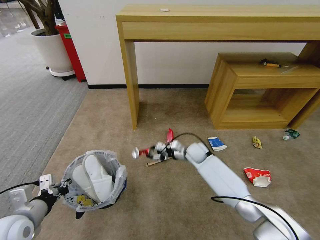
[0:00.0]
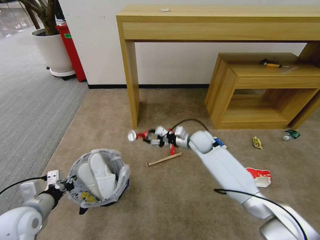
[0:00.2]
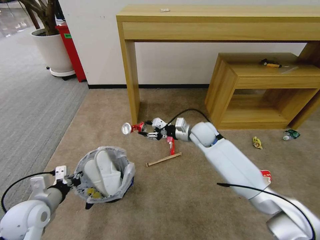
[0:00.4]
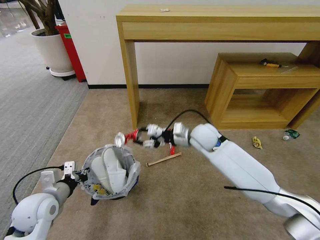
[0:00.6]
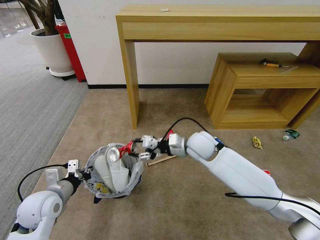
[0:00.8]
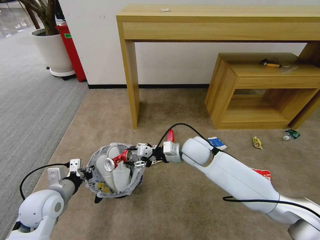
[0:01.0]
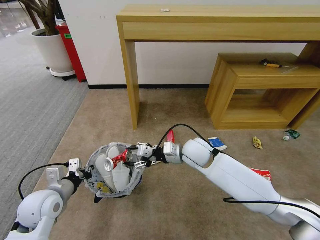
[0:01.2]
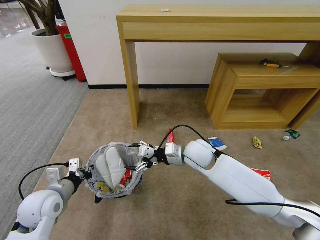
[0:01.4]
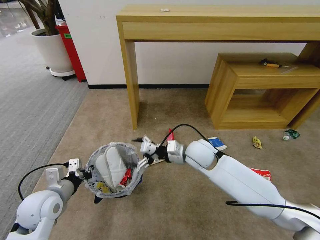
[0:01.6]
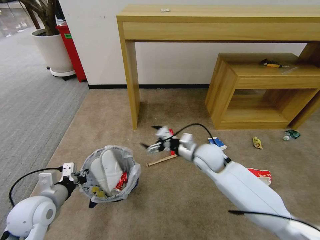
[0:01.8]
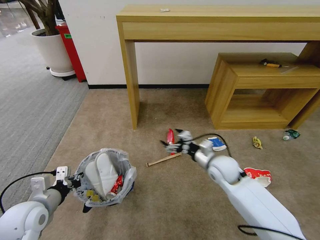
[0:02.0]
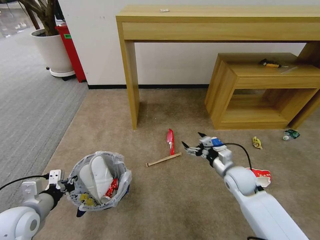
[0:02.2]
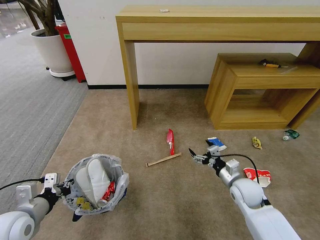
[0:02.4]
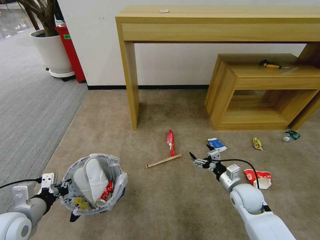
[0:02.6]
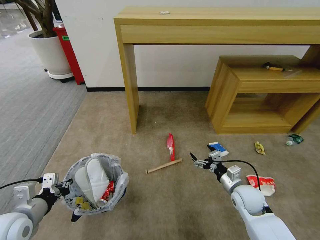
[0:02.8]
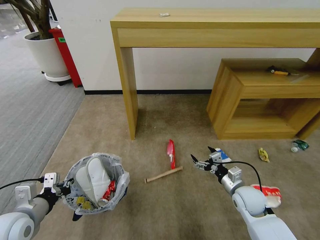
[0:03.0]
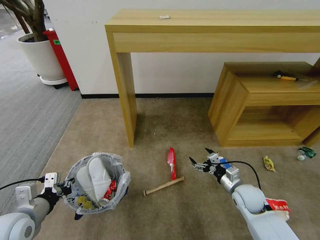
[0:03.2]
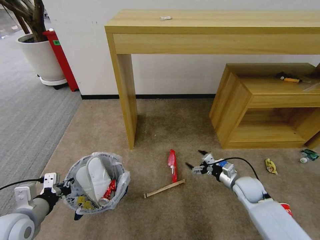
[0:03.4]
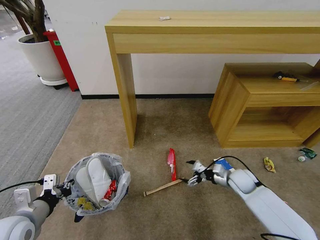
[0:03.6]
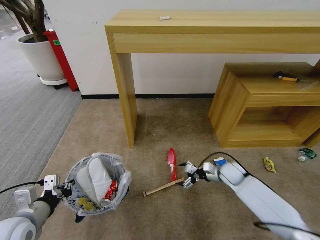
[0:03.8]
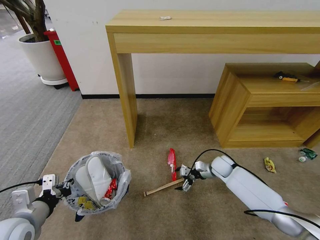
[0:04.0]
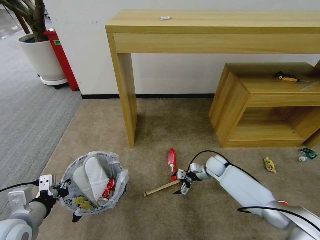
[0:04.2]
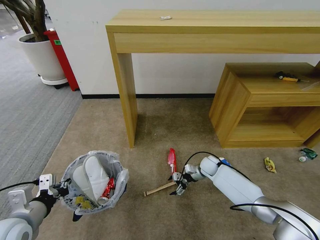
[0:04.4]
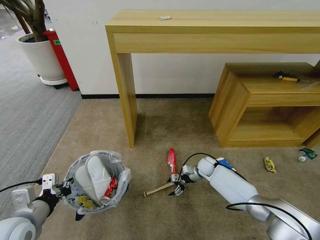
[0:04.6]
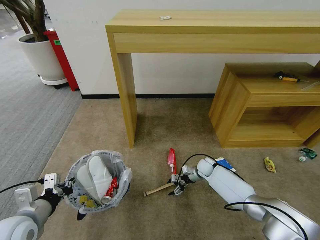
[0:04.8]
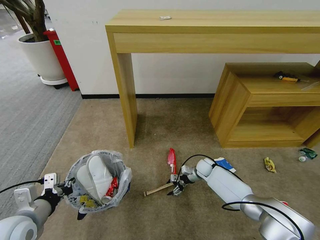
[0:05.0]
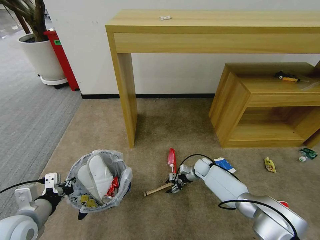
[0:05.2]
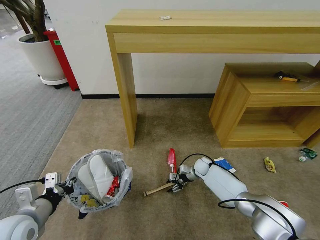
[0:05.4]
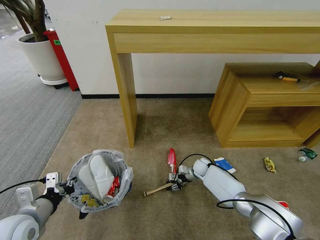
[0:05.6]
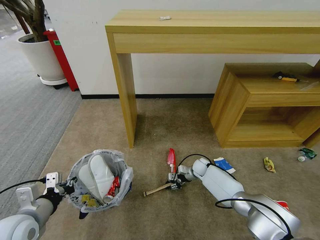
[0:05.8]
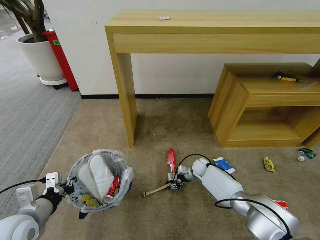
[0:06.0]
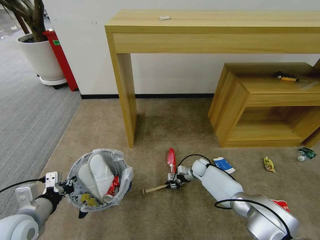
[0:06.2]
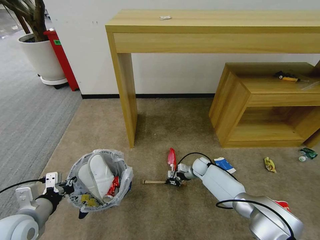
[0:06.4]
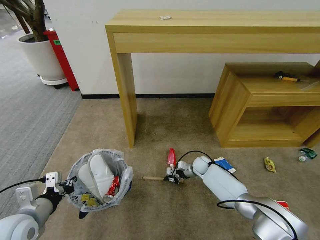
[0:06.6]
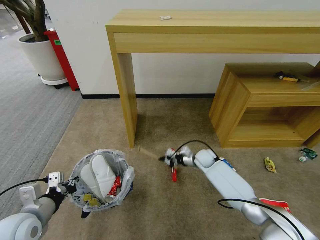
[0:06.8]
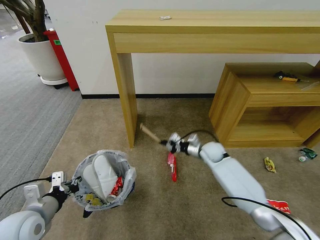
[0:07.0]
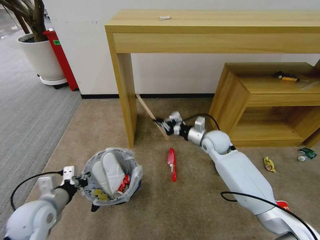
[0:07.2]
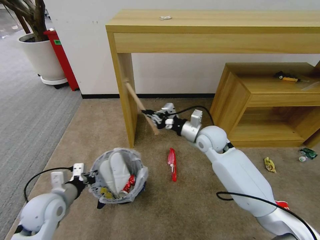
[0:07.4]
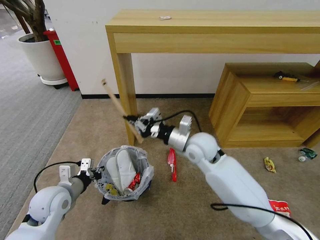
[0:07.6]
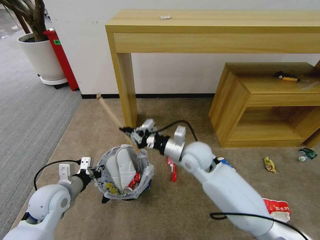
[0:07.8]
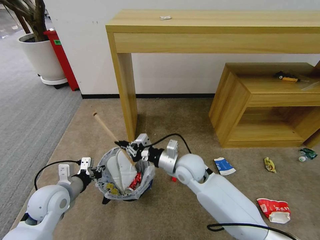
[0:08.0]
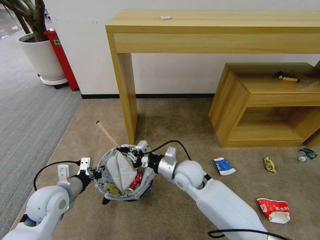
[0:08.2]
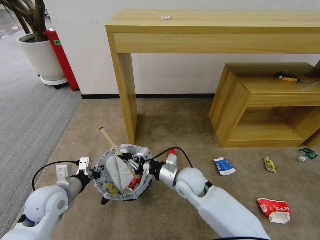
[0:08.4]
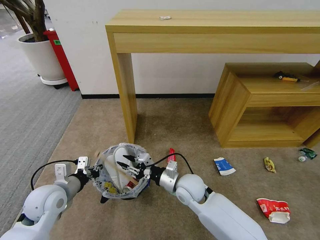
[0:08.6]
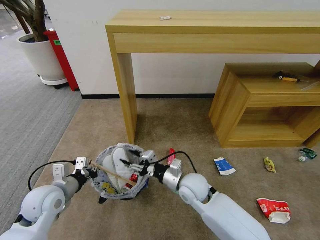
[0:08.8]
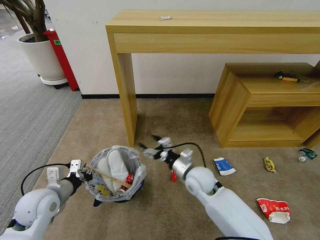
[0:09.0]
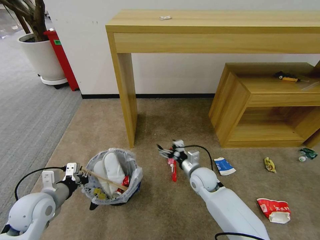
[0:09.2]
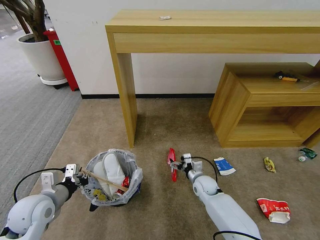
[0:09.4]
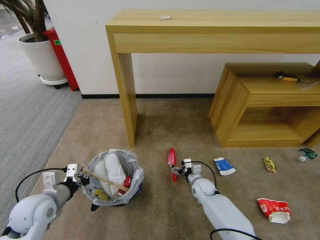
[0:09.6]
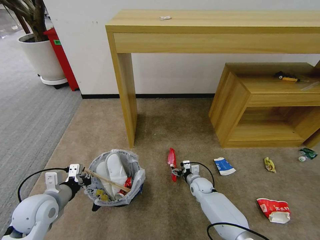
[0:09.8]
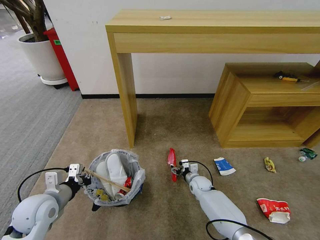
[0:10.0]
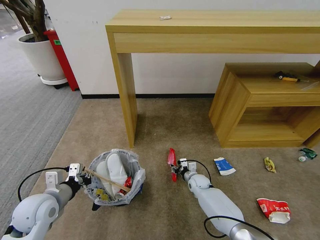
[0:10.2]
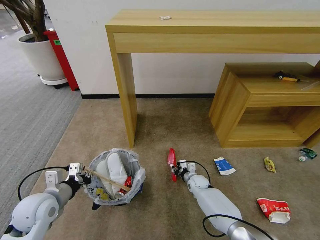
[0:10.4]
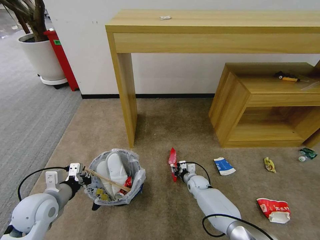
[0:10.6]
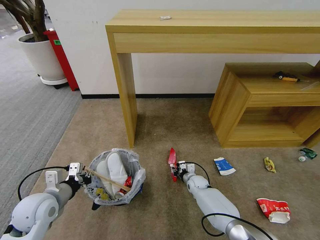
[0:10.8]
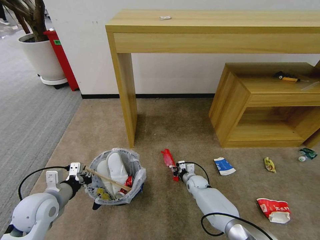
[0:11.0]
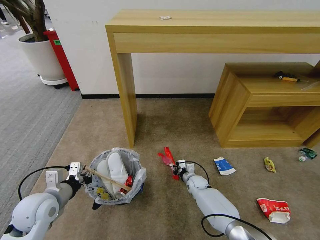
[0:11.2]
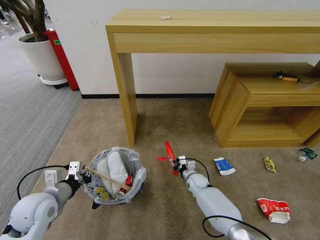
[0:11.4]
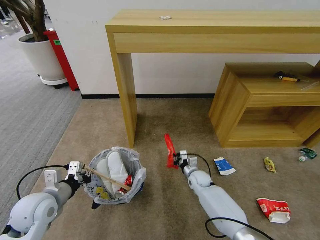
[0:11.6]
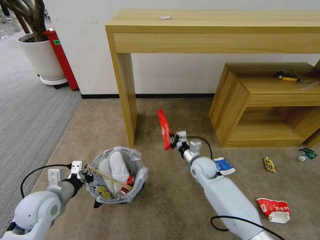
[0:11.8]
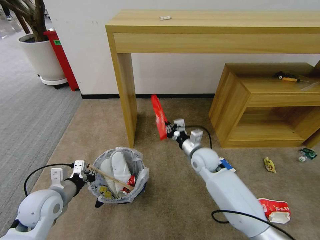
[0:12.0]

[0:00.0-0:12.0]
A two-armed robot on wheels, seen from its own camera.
Task of the whole recording: Pick up the trash bin and place the garbage on the floor into it.
0:00.0 to 0:01.6: The left gripper shifts about 5 cm forward; the right gripper travels upward and backward by approximately 15 cm, and opens up.
0:01.6 to 0:03.0: The left gripper moves backward, approximately 5 cm. The right gripper heads to the right, downward and backward, covering some 25 cm.
0:03.0 to 0:04.4: The right gripper is displaced forward and downward by about 20 cm.
0:04.4 to 0:06.0: The right gripper shifts by some 5 cm, and closes up.
0:06.0 to 0:07.6: The right gripper moves upward, about 30 cm. Meanwhile the left gripper goes some 10 cm forward.
0:07.6 to 0:09.0: The right gripper is displaced downward and backward by approximately 15 cm, and opens.
0:09.0 to 0:10.4: The right gripper is displaced downward and forward by some 25 cm, and closes up.
0:10.4 to 0:12.0: The right gripper goes some 25 cm upward.

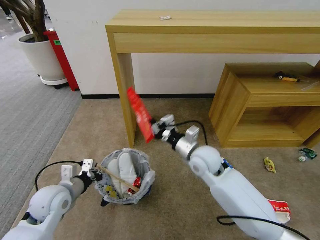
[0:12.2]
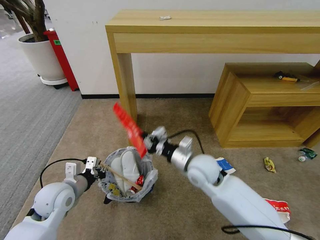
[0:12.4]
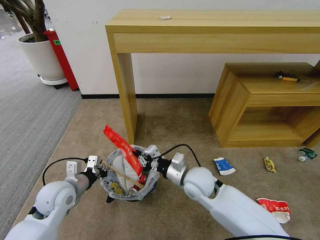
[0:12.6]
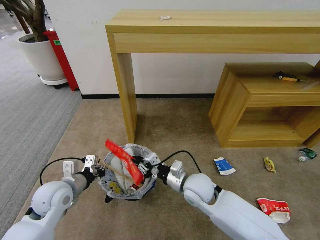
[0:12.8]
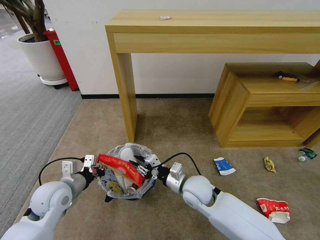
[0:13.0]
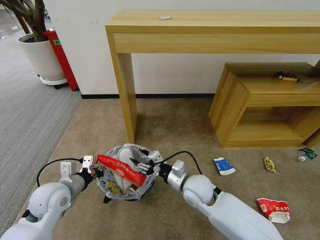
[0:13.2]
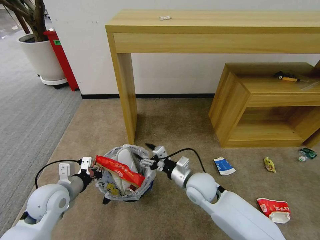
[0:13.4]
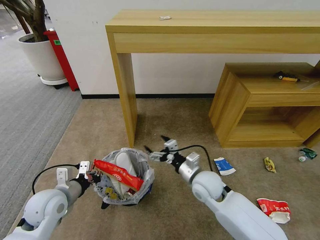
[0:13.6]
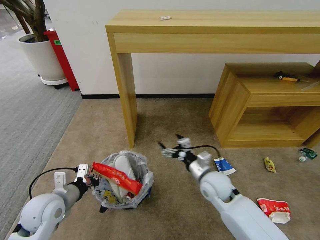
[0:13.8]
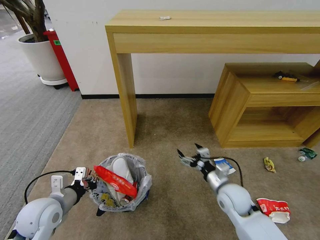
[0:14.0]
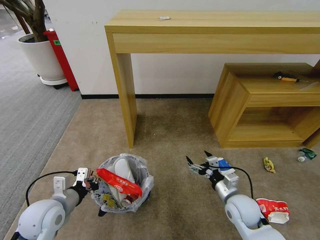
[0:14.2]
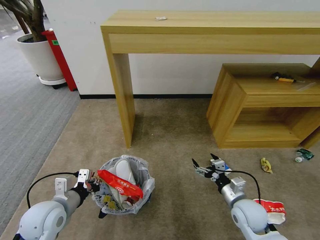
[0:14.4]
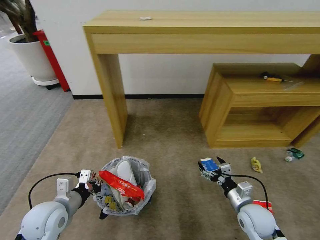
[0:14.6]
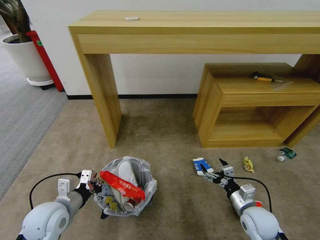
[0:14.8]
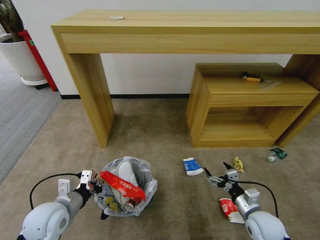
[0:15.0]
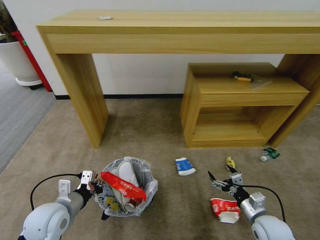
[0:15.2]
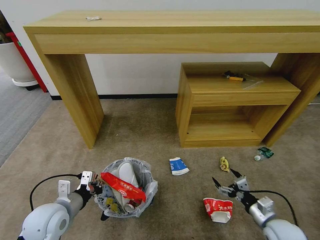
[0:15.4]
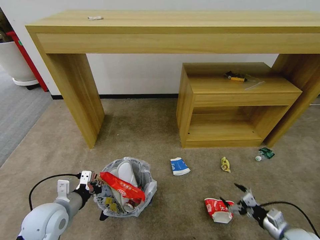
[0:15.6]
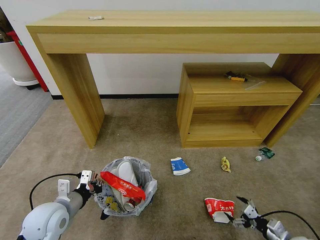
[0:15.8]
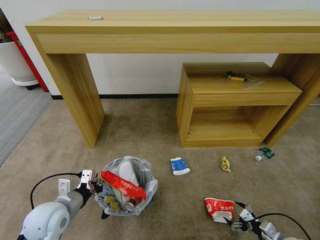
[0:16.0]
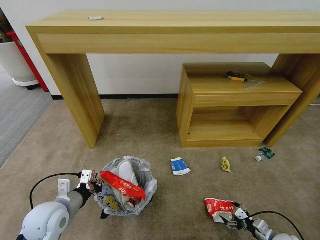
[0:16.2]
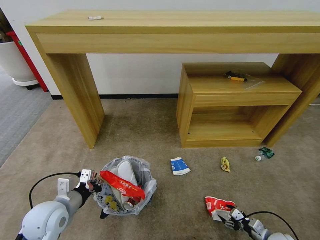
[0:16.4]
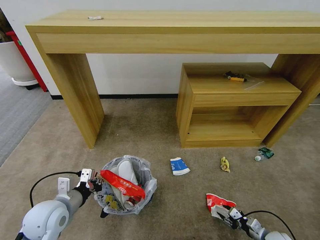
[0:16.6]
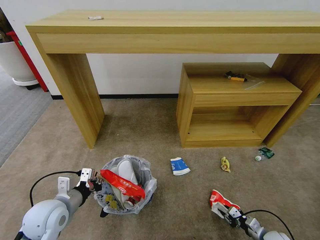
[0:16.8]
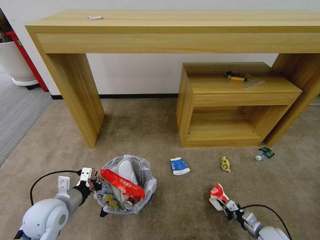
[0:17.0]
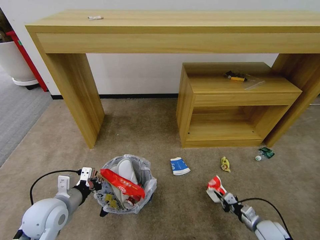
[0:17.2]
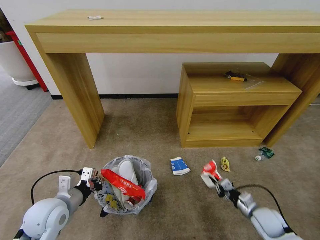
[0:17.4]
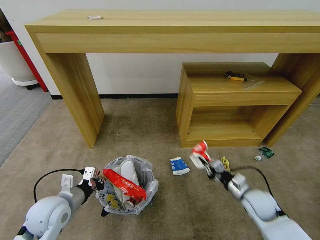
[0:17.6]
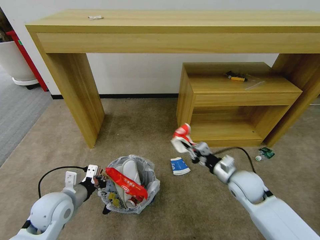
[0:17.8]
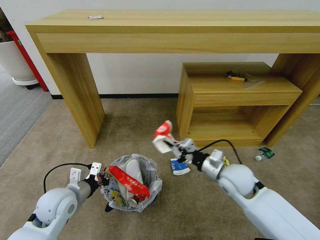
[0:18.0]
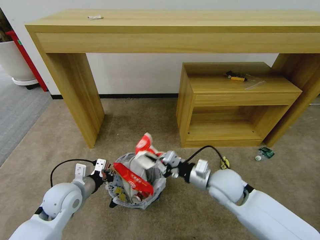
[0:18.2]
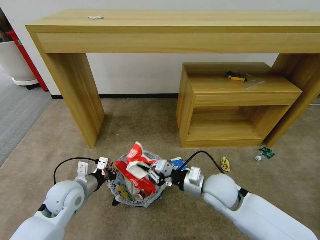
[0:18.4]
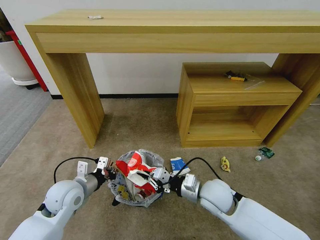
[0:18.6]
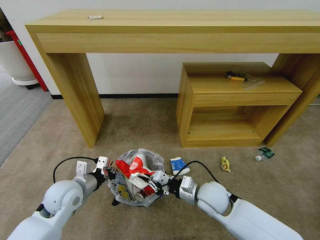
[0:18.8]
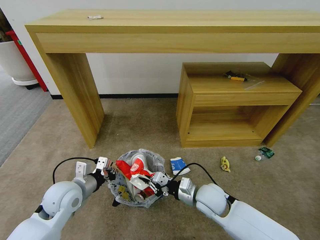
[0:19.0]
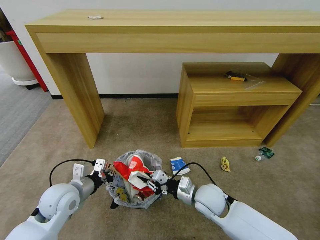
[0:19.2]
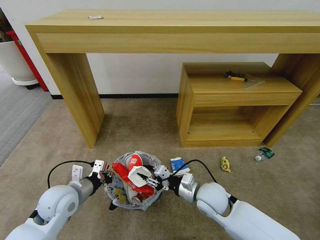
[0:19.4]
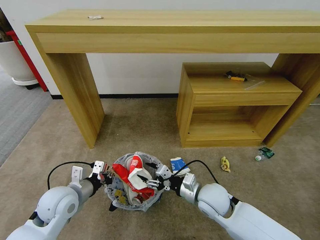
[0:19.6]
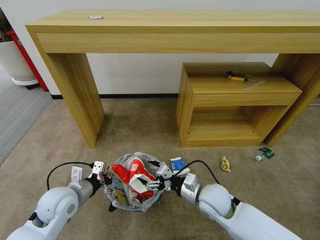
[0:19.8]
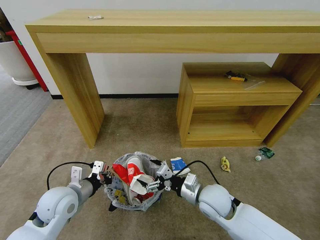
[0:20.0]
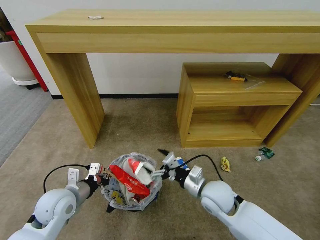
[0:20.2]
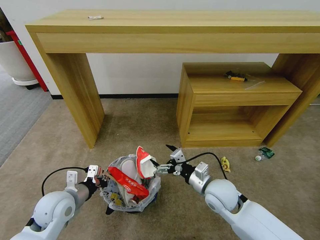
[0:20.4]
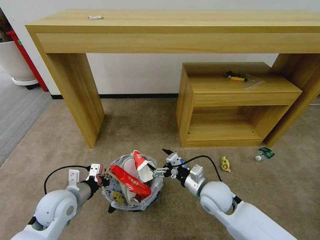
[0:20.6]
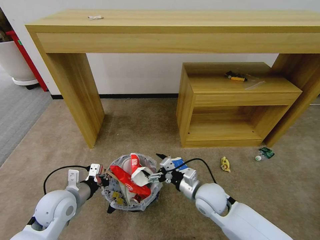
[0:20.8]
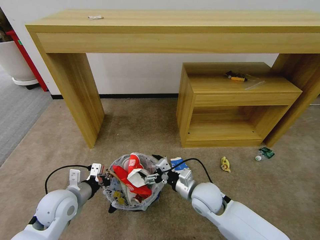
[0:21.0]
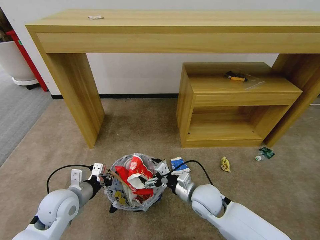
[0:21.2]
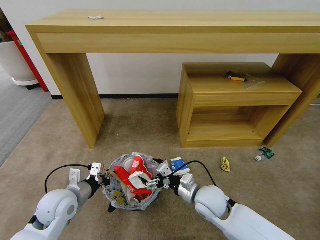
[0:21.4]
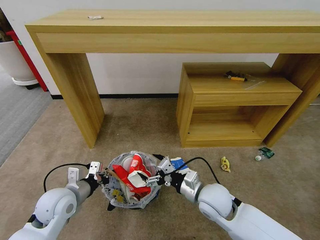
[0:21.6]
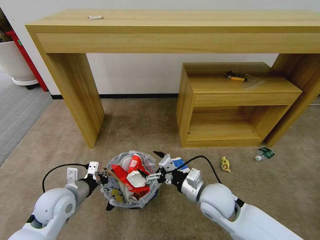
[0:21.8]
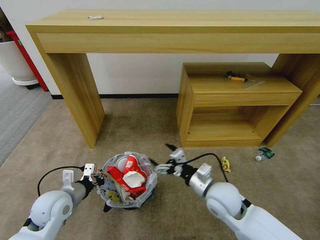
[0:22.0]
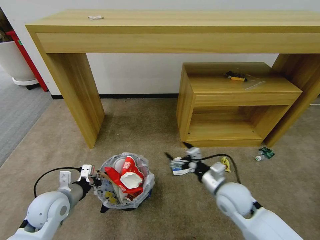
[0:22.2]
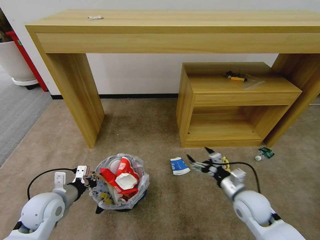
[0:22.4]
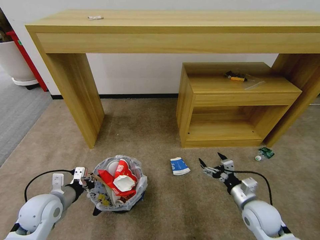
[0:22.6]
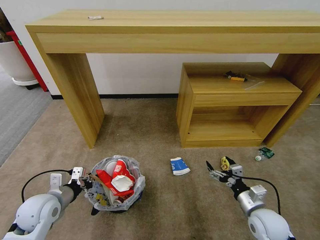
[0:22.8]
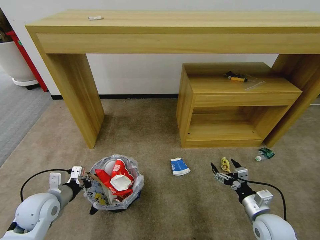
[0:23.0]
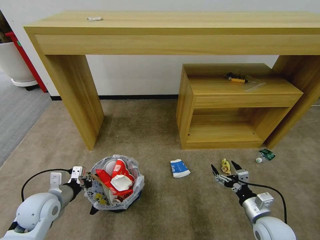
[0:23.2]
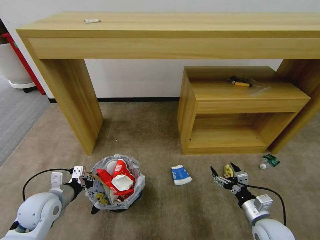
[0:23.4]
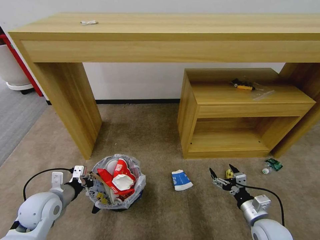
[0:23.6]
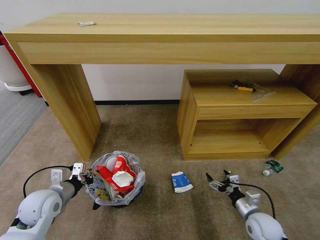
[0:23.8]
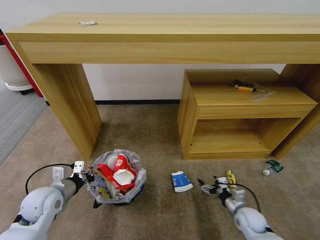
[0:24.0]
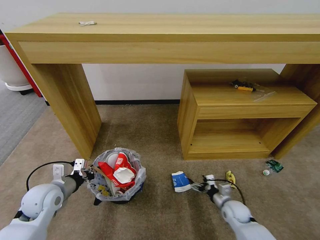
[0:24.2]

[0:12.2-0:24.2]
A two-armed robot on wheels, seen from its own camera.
Task of the whole recording: Pick up the trash bin and place the garbage on the floor into it.
0:12.2 to 0:13.8: The right gripper is displaced downward and backward by about 10 cm, and opens.
0:13.8 to 0:15.2: The right gripper travels to the right, backward and downward by roughly 20 cm.
0:15.2 to 0:16.6: The right gripper shifts approximately 15 cm downward and to the right, and closes up.
0:16.6 to 0:18.2: The right gripper shifts roughly 40 cm upward, to the left and forward, and closes up, while the left gripper moves forward, about 5 cm.
0:18.2 to 0:19.8: The right gripper shifts some 5 cm downward, and opens its fingers.
0:19.8 to 0:21.2: The grippers make only small movements.
0:21.2 to 0:22.6: The right gripper goes roughly 15 cm to the right. The left gripper heads to the left, covering roughly 5 cm.
0:22.6 to 0:24.2: The right gripper goes some 15 cm downward.
